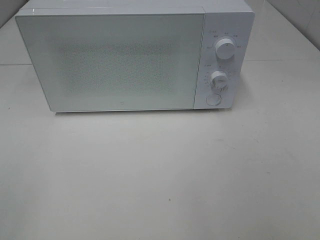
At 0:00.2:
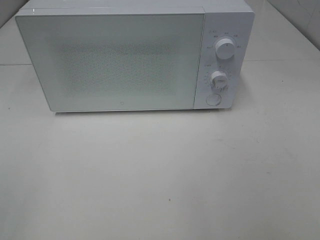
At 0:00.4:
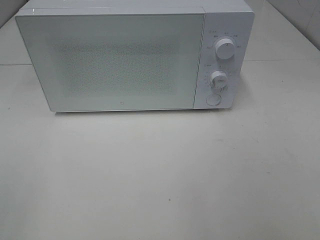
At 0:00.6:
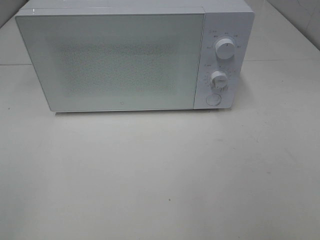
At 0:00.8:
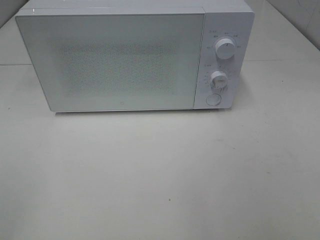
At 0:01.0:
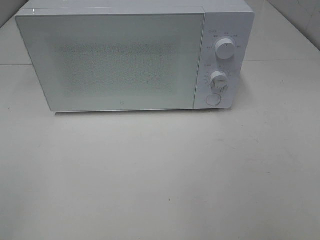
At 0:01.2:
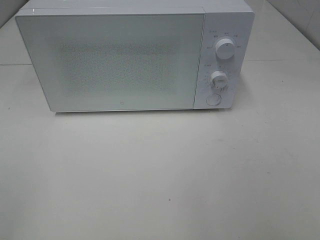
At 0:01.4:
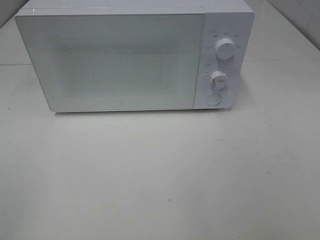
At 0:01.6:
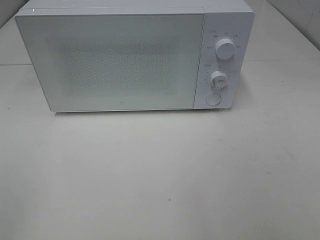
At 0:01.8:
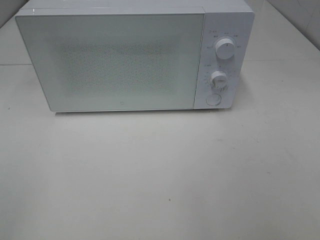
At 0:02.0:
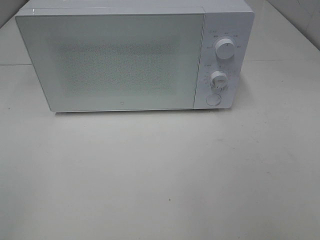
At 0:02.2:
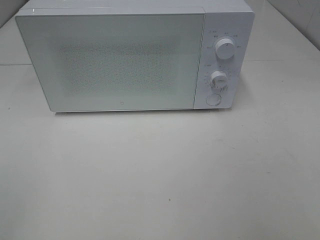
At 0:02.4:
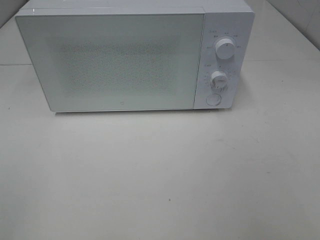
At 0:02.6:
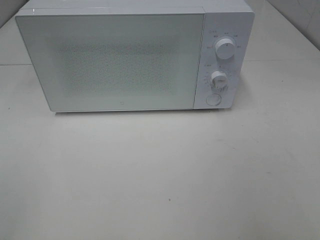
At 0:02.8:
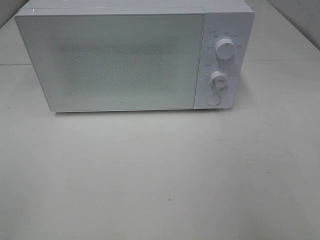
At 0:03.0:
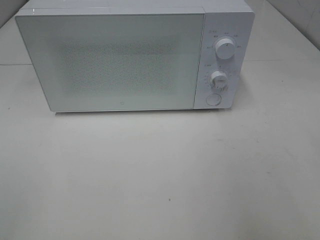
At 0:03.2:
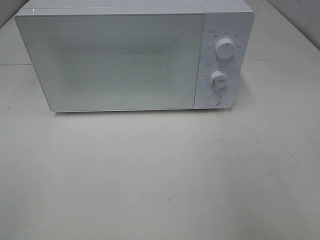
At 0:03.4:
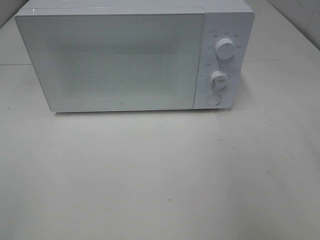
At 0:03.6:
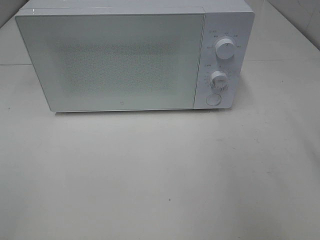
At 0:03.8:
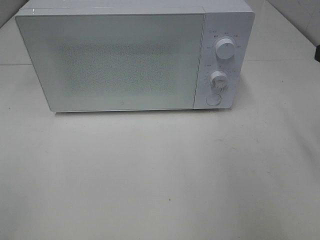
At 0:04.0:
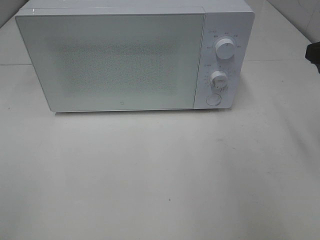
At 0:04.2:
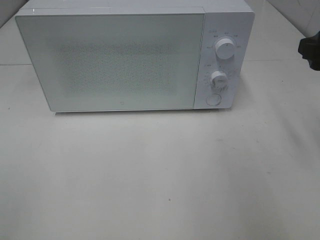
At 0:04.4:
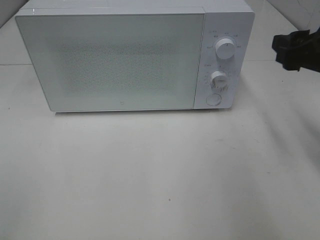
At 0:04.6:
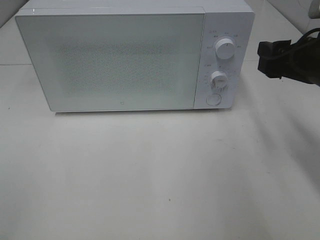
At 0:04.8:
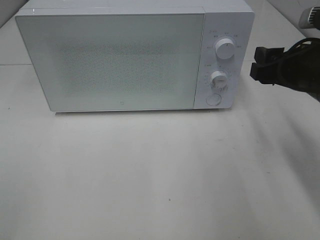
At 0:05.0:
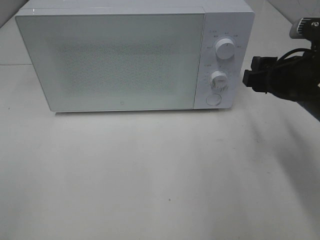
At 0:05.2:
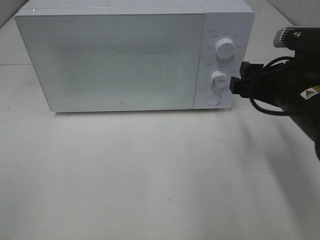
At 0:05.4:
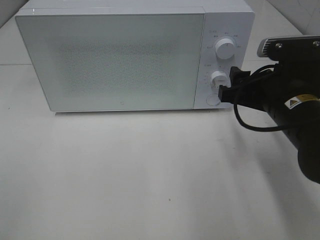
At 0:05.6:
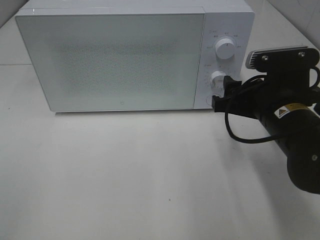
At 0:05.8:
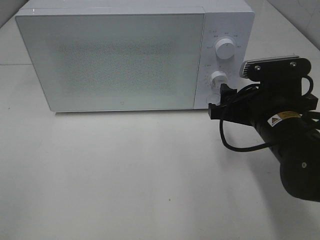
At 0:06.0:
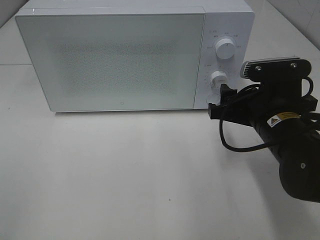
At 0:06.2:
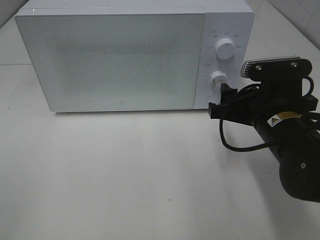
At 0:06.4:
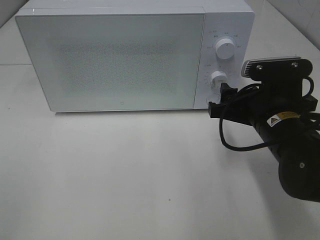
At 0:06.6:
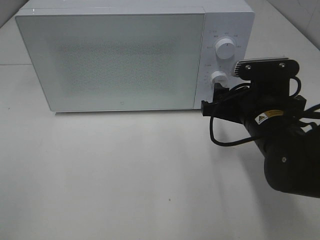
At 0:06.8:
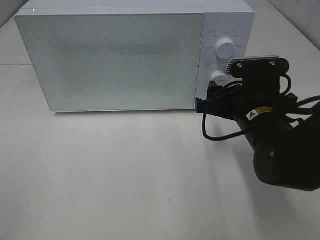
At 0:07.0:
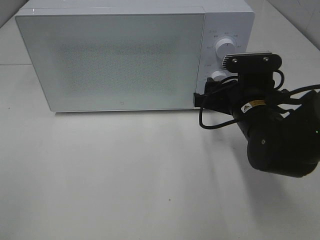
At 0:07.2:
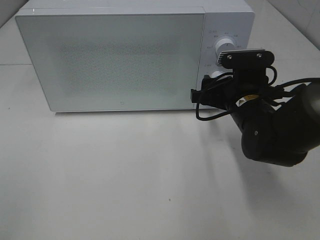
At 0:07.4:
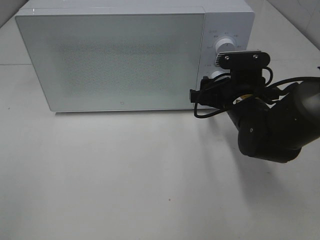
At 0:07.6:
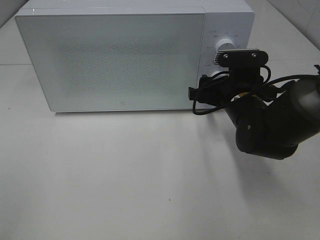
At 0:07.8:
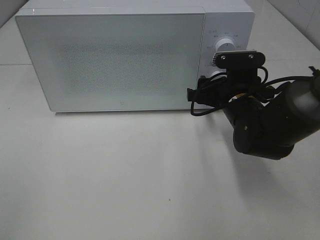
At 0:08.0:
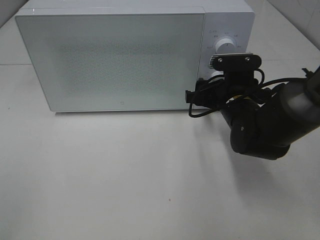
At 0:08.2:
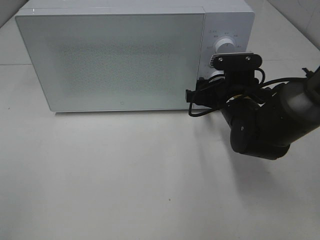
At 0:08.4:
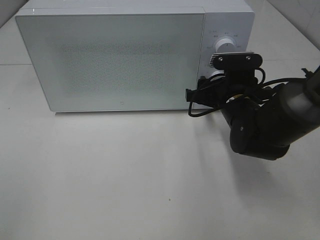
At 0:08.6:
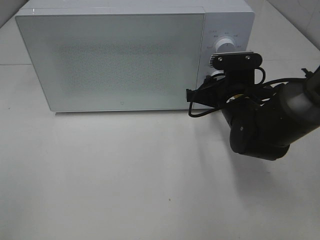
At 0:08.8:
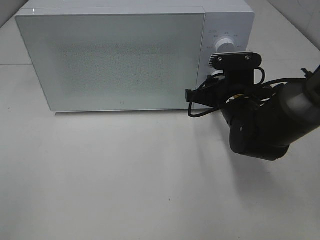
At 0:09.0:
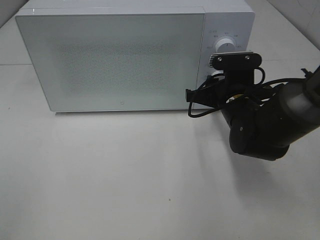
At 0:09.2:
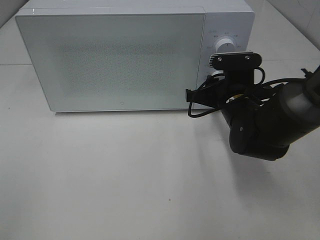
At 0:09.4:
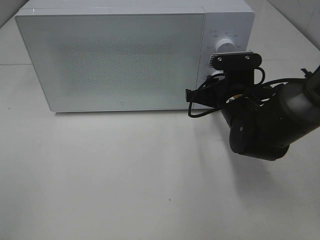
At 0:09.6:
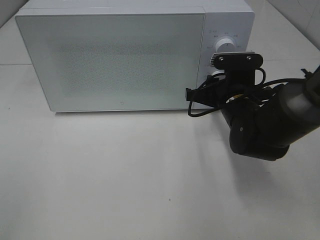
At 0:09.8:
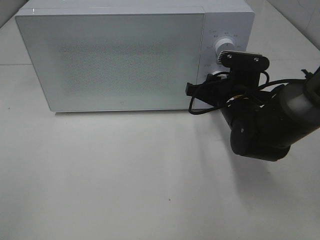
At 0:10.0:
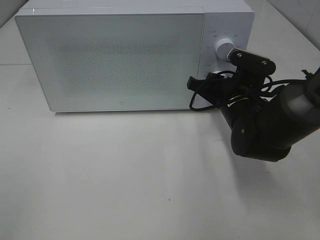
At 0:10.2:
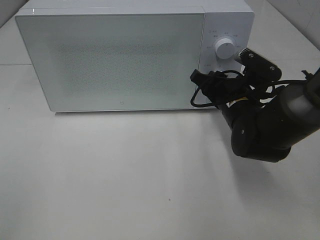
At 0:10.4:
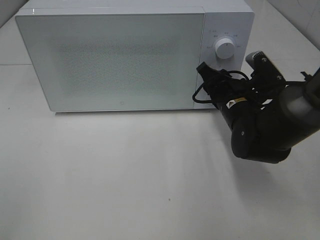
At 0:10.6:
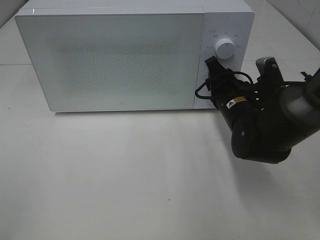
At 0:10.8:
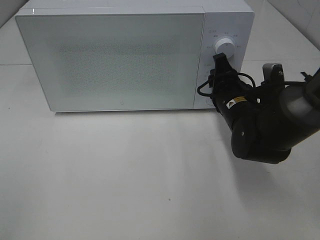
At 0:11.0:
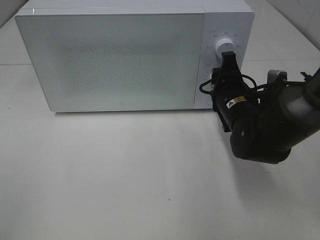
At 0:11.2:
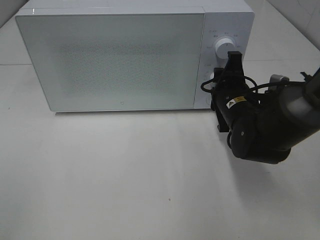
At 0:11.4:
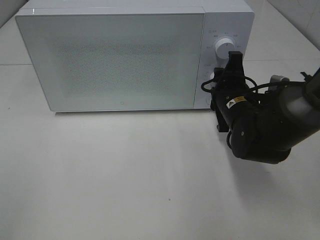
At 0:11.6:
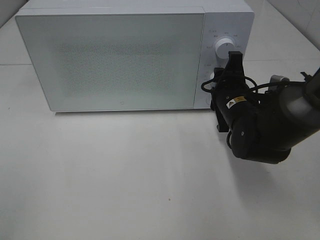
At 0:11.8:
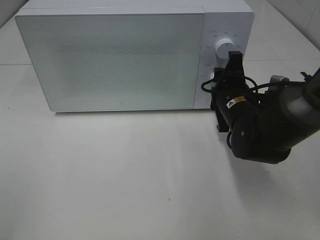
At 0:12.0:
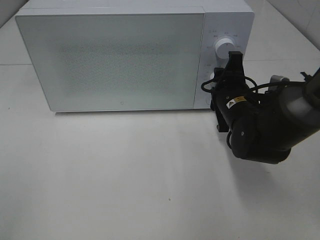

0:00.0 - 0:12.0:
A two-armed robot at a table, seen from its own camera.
Task of the whole recording: Heat Sandwich.
0:00.0 - 0:01.6: The two grippers keep their place.
0:03.0 - 0:04.4: The right gripper heads forward and downward, covering approximately 15 cm.
0:04.4 - 0:06.0: The right gripper goes about 10 cm downward and to the left.
0:06.0 - 0:07.6: The right gripper moves forward, about 10 cm.
0:07.6 - 0:09.0: The right gripper closes.

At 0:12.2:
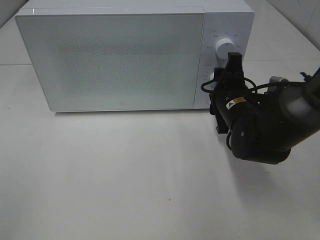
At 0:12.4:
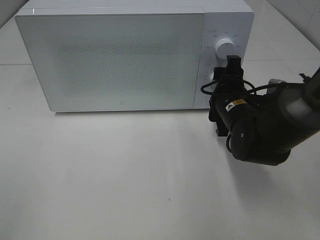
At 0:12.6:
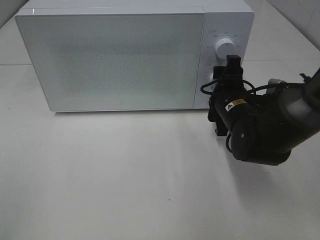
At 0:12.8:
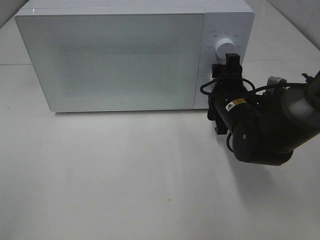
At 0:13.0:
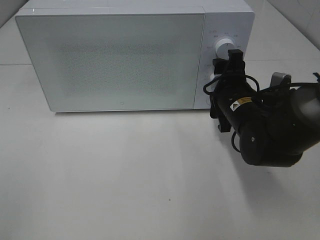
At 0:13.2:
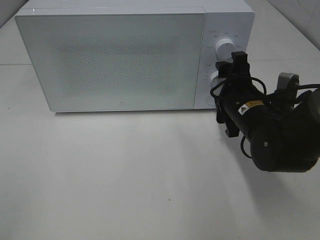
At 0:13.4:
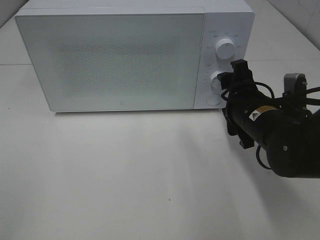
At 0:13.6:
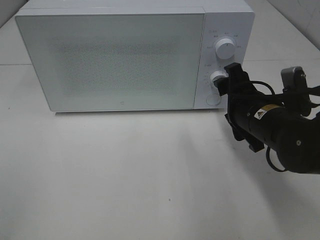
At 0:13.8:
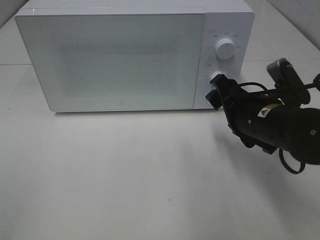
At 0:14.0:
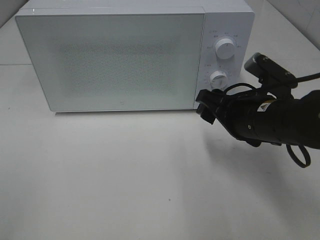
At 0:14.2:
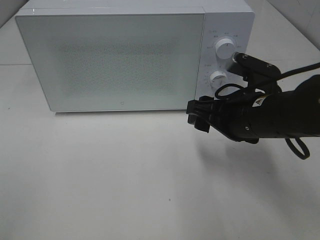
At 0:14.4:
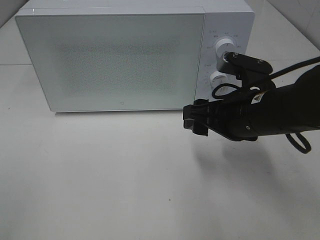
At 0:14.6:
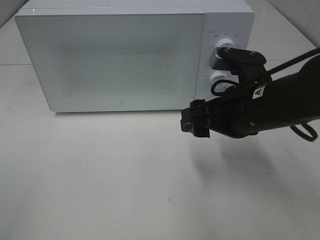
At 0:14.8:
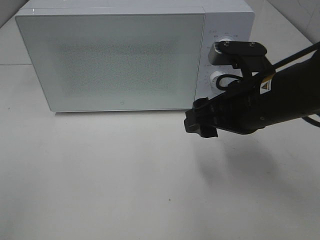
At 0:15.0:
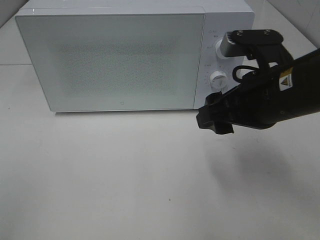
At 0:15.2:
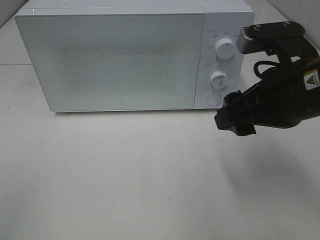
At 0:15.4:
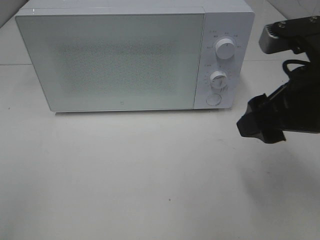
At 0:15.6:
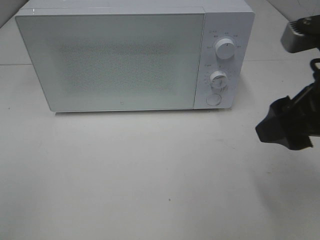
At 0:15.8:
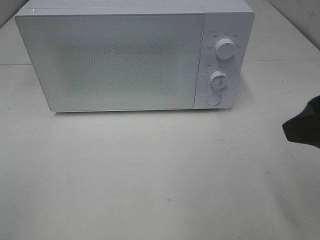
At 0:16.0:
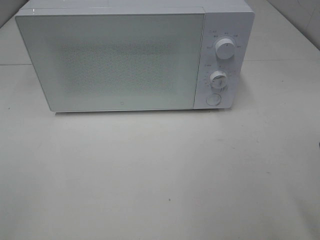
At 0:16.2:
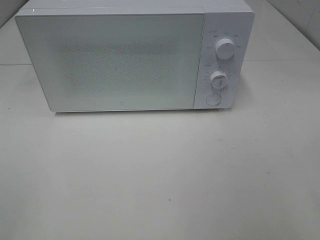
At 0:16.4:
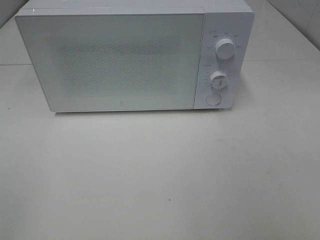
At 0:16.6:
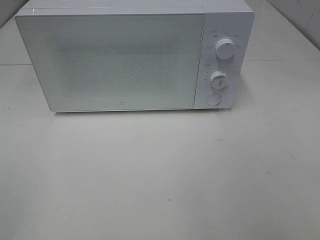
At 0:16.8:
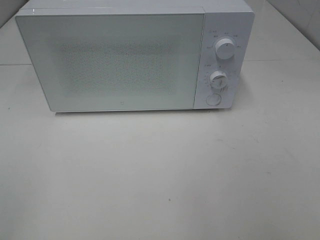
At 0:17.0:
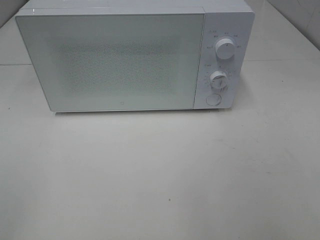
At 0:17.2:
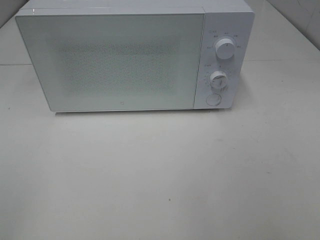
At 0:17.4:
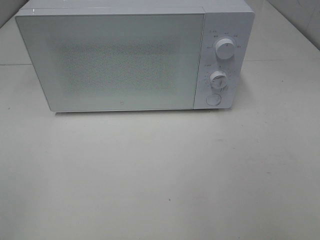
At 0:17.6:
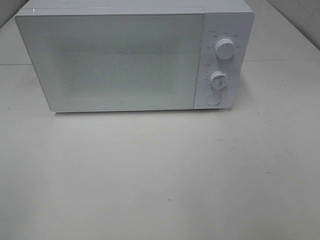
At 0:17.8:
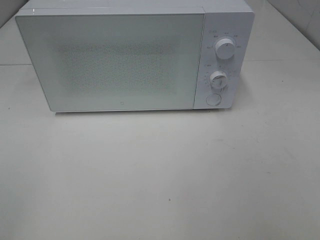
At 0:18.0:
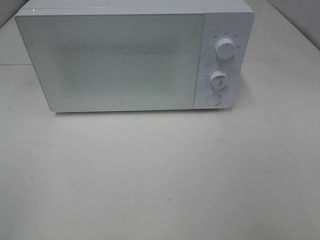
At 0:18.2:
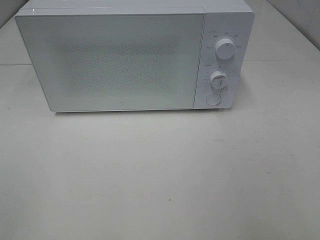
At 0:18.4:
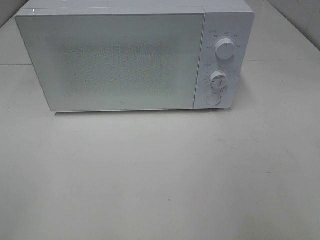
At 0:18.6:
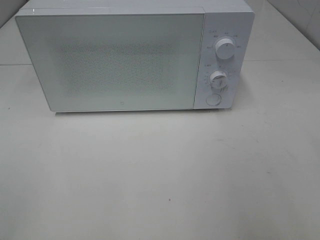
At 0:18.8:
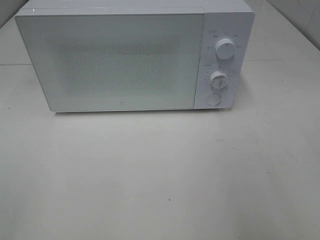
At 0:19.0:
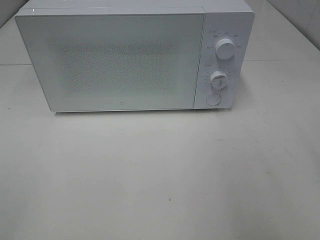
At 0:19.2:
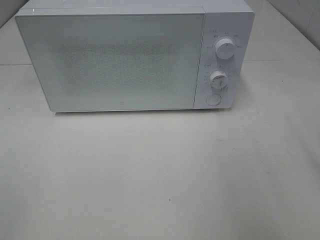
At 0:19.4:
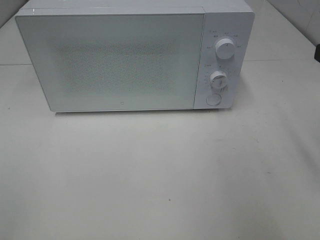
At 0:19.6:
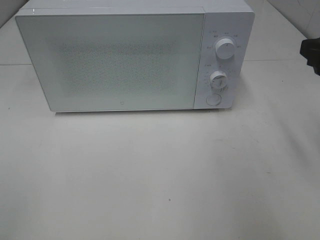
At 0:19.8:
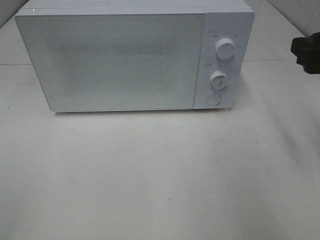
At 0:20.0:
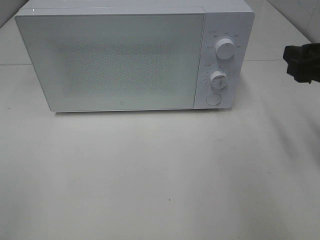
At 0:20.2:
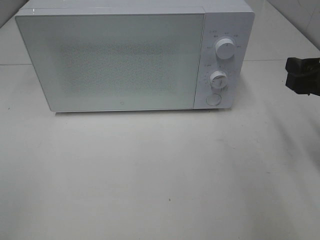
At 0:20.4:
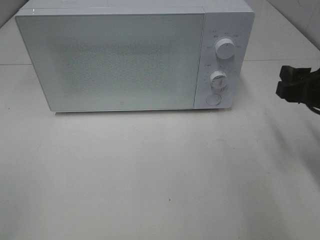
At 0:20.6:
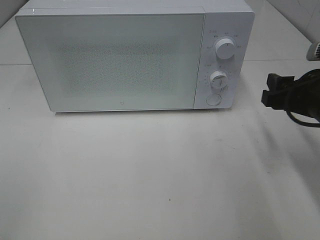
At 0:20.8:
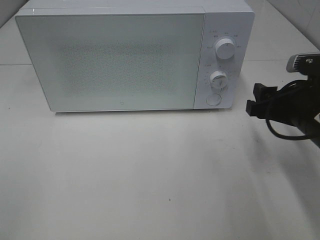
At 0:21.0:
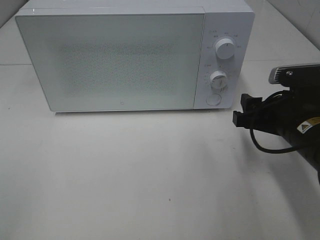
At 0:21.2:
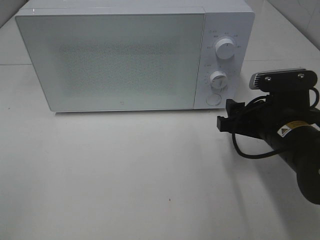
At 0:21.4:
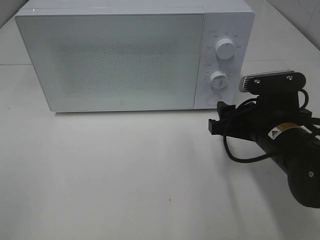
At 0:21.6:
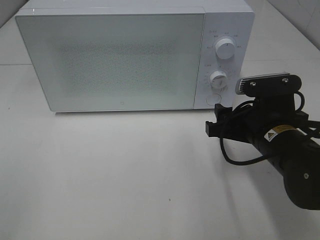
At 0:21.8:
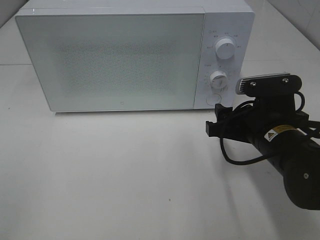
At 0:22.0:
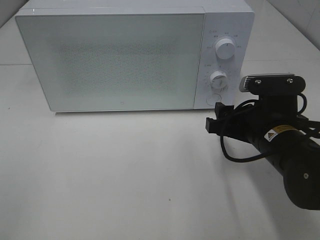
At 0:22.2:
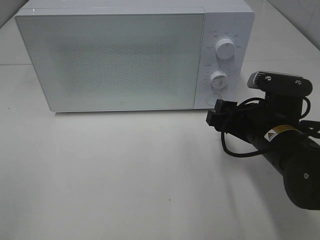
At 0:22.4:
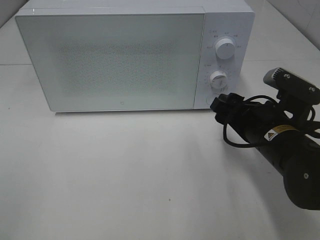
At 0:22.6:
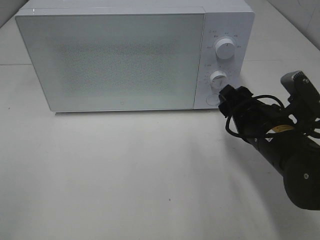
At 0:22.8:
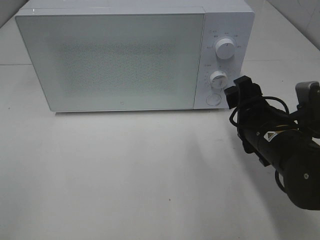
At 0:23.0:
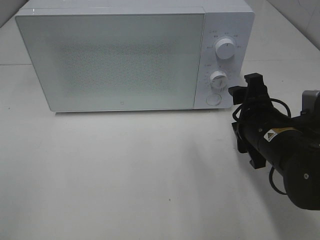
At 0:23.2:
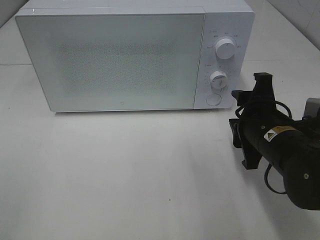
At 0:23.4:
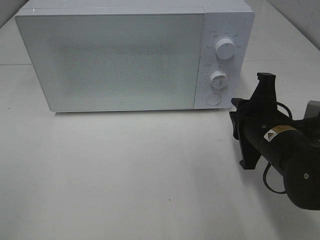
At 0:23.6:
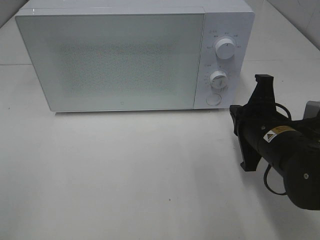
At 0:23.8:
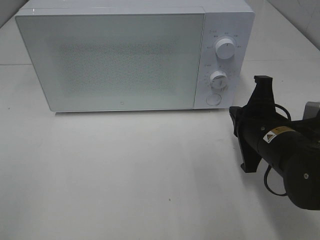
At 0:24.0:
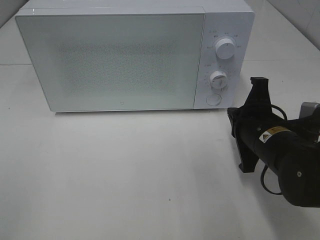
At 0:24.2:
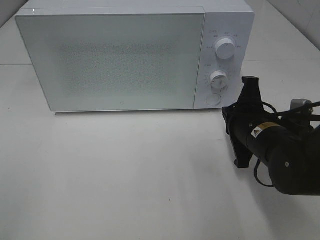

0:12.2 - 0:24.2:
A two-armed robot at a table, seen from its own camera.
Task of the whole recording: Heat Sandwich.
0:12.2 - 0:13.8: The right gripper travels backward by roughly 5 cm.
0:13.8 - 0:15.2: The right gripper is displaced upward by approximately 10 cm.
0:15.2 - 0:16.6: The right gripper shifts roughly 20 cm backward and to the right.
0:18.2 - 0:19.8: The right gripper shifts roughly 20 cm forward.
0:19.8 - 0:21.2: The right gripper heads downward and to the left, covering about 15 cm.
0:22.6 - 0:24.2: The right gripper closes.
